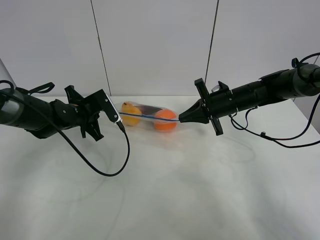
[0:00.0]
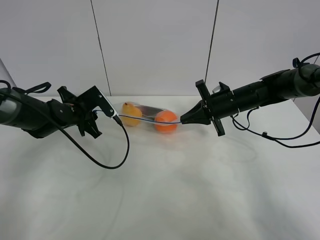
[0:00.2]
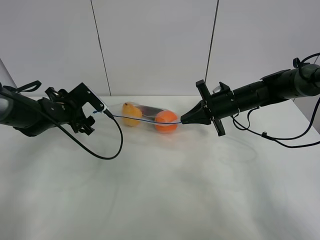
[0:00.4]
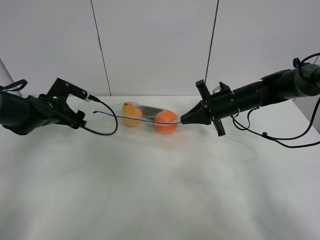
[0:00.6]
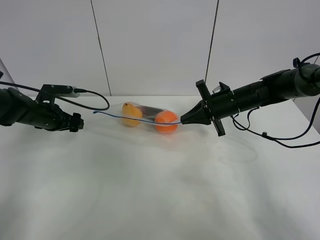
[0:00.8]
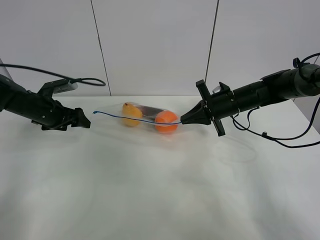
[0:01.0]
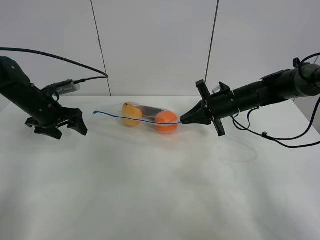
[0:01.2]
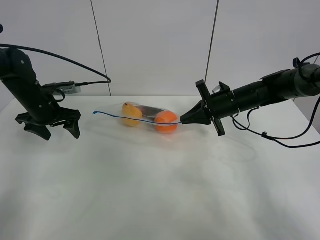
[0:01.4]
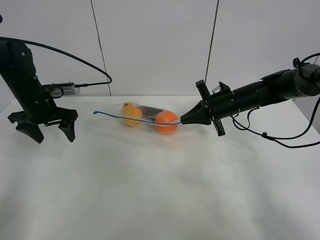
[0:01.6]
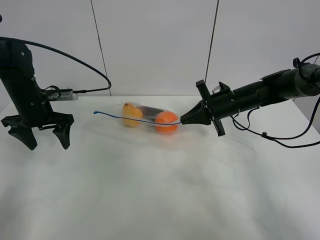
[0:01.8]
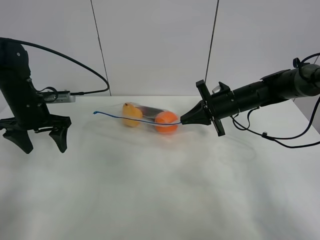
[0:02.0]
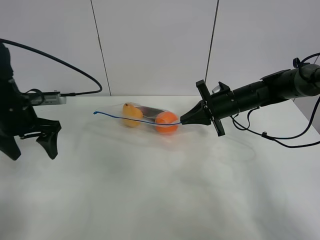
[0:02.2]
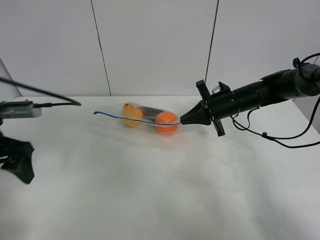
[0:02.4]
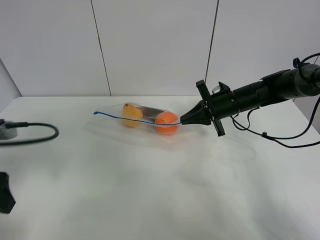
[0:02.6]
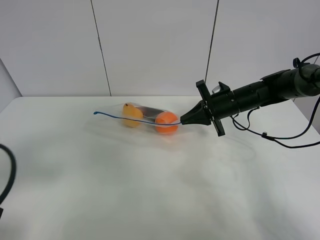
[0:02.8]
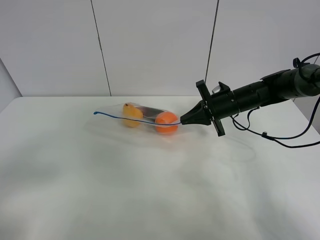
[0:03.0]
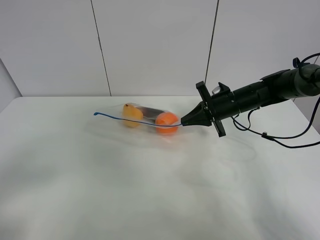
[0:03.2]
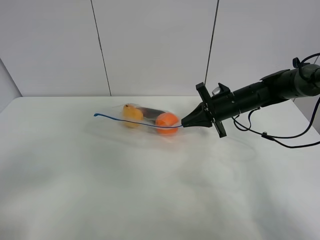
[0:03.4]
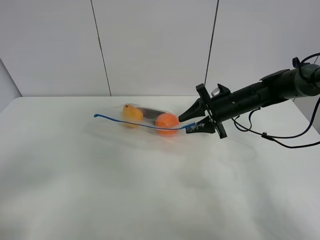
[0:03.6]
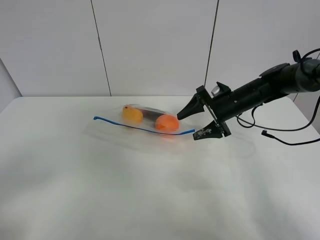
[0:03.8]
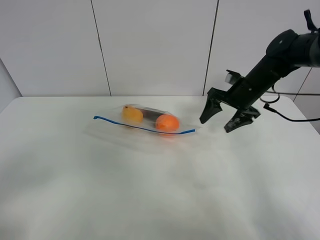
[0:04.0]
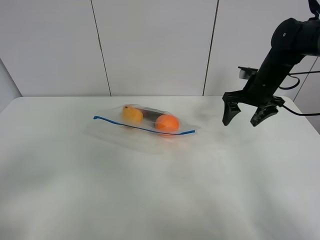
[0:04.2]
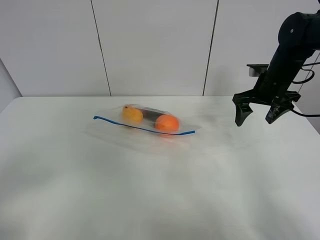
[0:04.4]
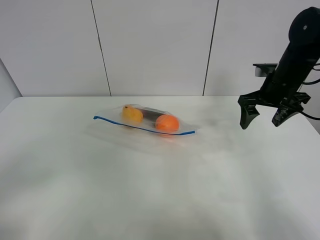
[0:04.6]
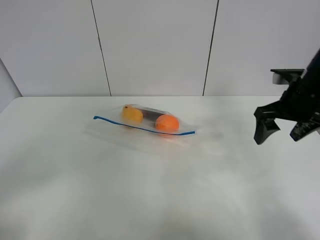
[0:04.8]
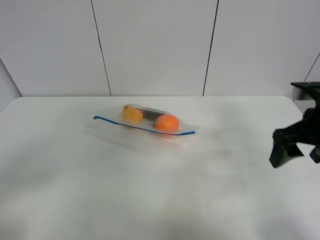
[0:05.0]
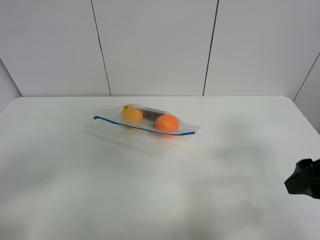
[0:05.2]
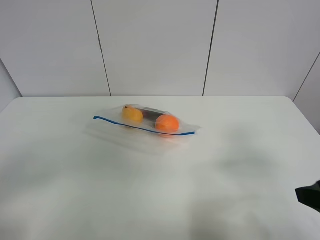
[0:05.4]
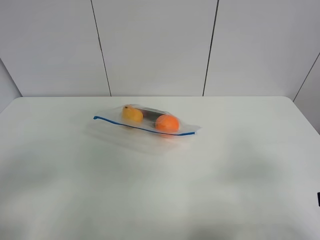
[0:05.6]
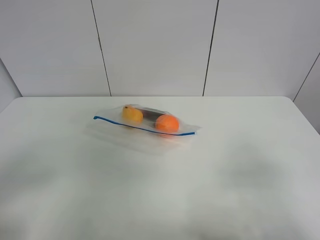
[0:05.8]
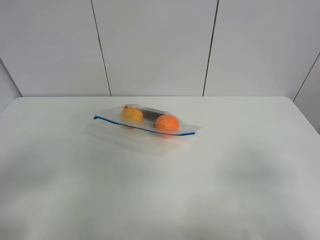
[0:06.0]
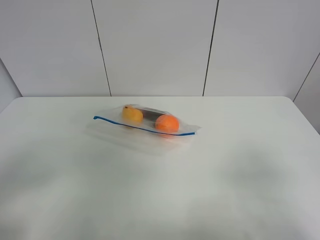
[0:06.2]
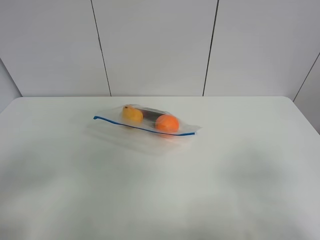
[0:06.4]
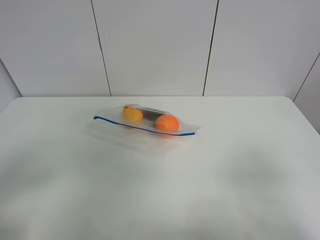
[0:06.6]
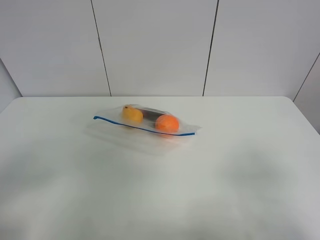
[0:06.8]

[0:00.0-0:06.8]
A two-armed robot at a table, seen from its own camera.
0:00.0 to 0:01.4: The left gripper moves to the left, about 10 cm, and opens.
0:01.4 to 0:02.8: The left gripper goes roughly 30 cm backward.
0:02.8 to 0:04.0: The right gripper moves some 5 cm, and opens its fingers. Meanwhile the left gripper shifts approximately 5 cm backward.
0:04.0 to 0:05.4: The right gripper goes roughly 30 cm backward.
0:05.4 to 0:06.8: The right gripper heads backward, covering about 10 cm.

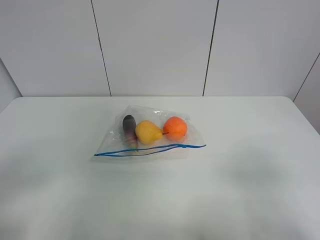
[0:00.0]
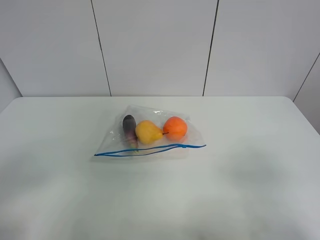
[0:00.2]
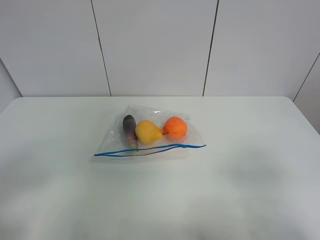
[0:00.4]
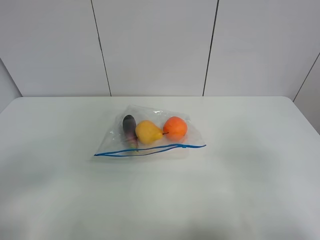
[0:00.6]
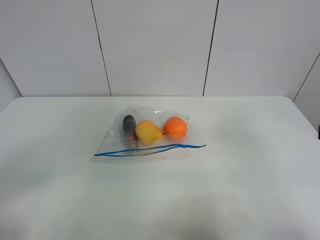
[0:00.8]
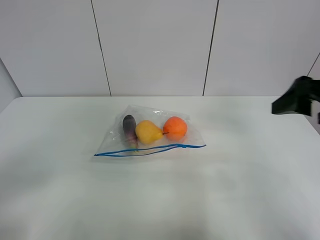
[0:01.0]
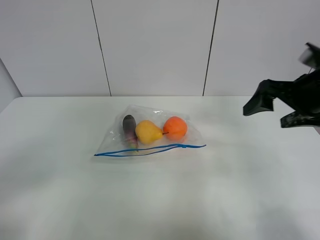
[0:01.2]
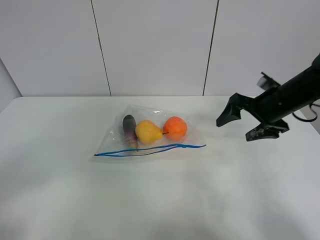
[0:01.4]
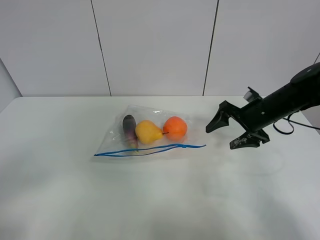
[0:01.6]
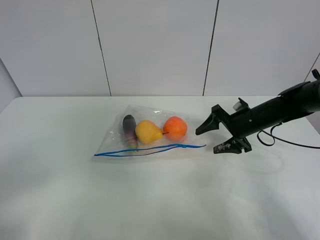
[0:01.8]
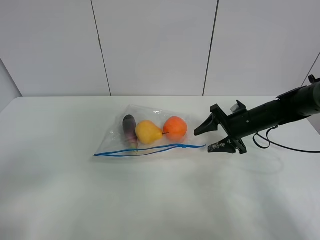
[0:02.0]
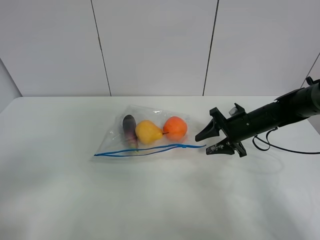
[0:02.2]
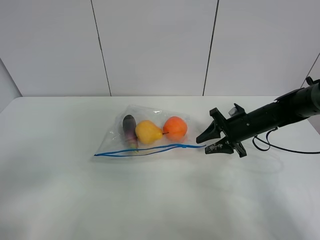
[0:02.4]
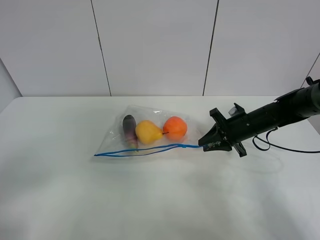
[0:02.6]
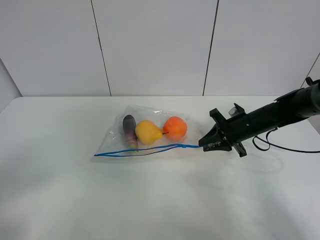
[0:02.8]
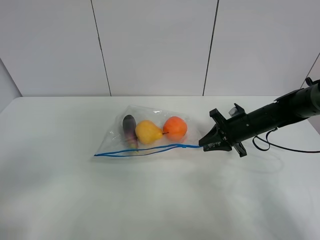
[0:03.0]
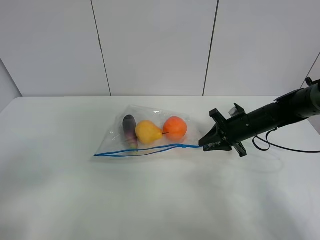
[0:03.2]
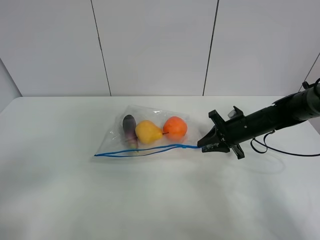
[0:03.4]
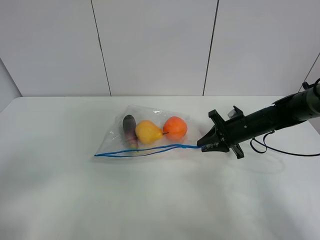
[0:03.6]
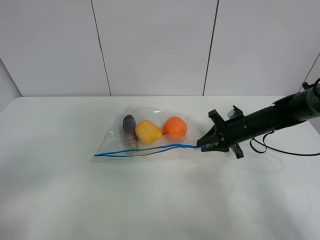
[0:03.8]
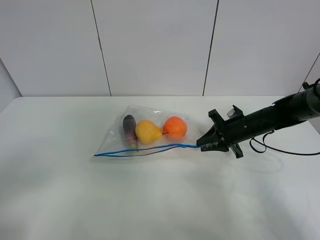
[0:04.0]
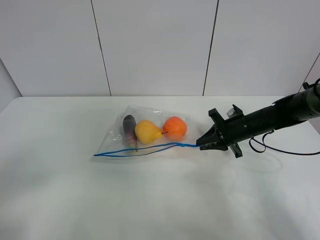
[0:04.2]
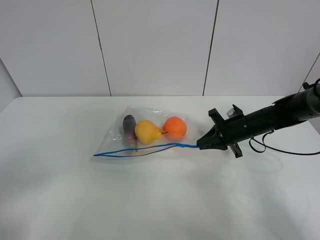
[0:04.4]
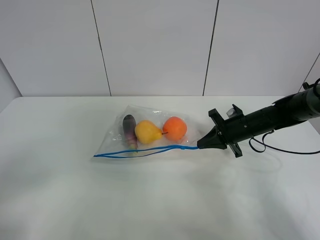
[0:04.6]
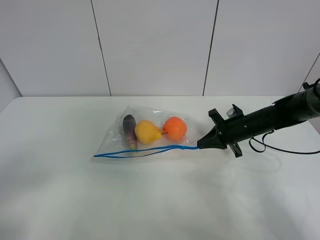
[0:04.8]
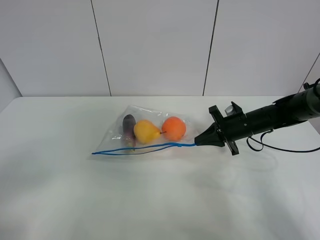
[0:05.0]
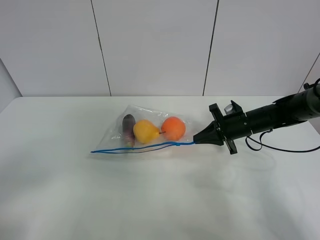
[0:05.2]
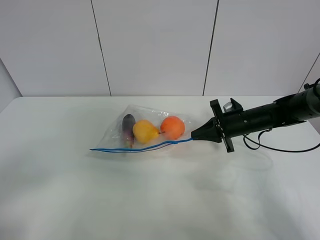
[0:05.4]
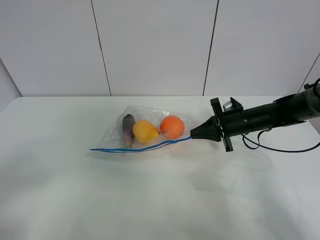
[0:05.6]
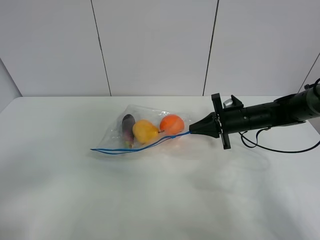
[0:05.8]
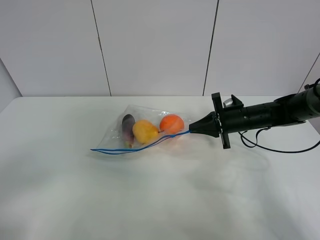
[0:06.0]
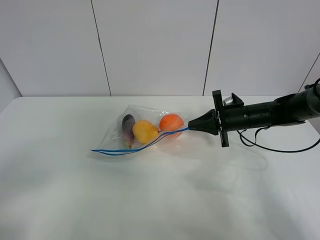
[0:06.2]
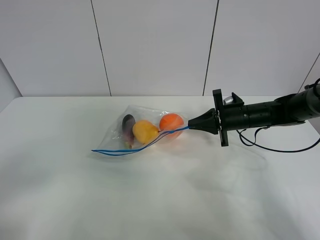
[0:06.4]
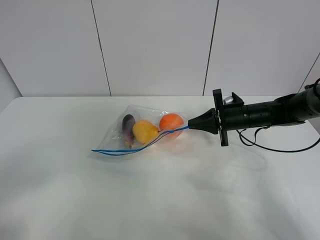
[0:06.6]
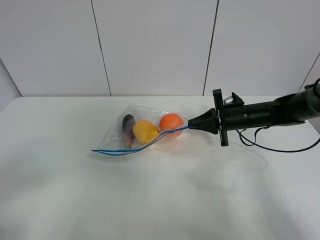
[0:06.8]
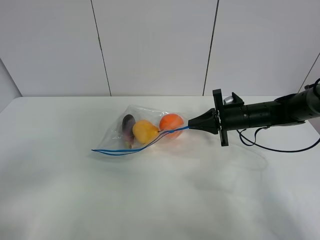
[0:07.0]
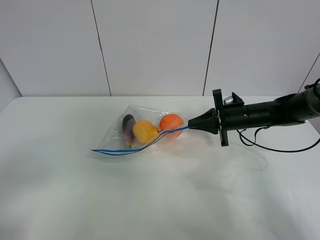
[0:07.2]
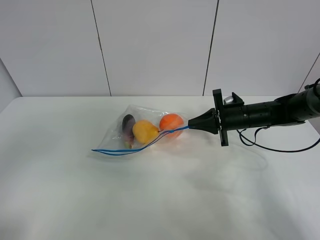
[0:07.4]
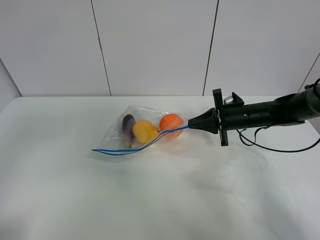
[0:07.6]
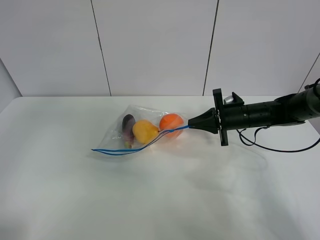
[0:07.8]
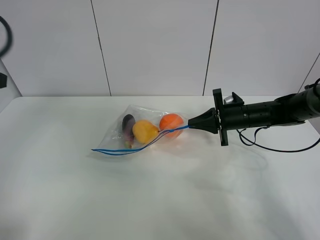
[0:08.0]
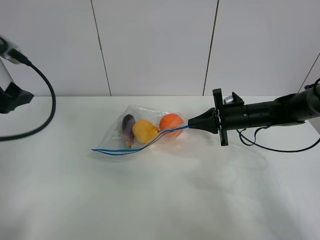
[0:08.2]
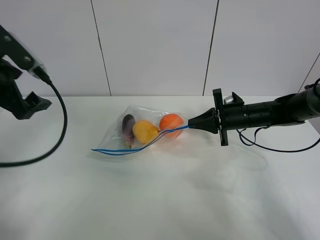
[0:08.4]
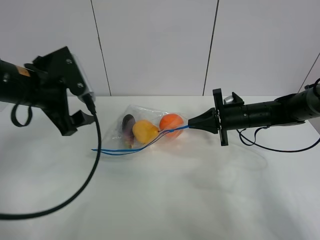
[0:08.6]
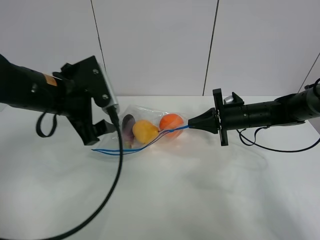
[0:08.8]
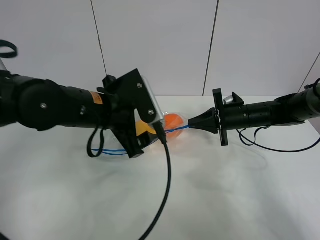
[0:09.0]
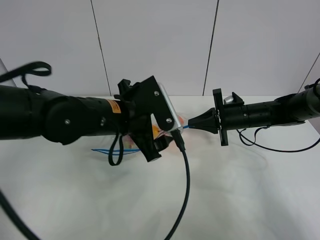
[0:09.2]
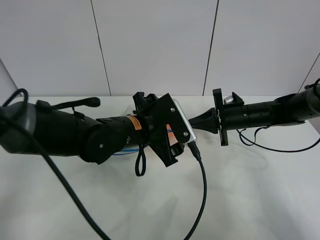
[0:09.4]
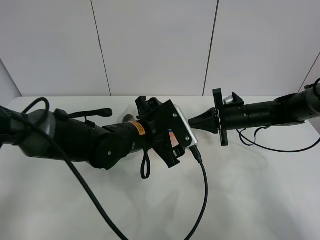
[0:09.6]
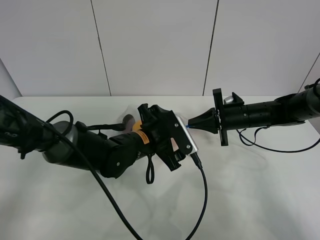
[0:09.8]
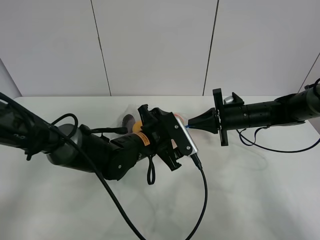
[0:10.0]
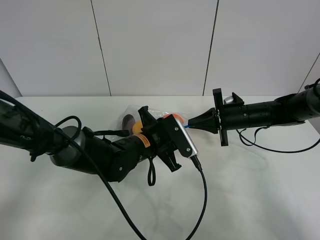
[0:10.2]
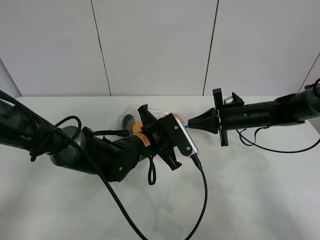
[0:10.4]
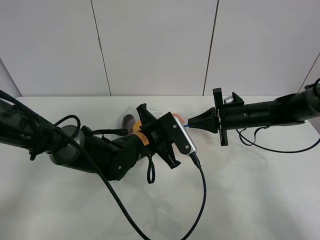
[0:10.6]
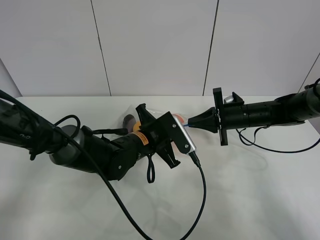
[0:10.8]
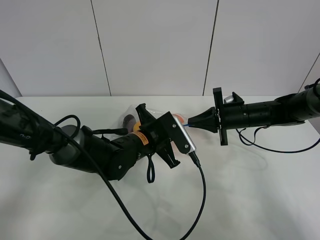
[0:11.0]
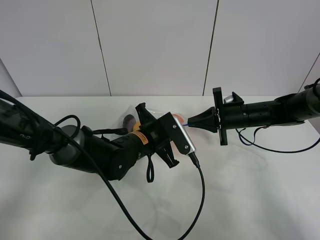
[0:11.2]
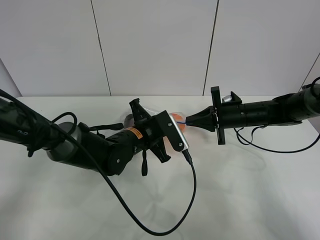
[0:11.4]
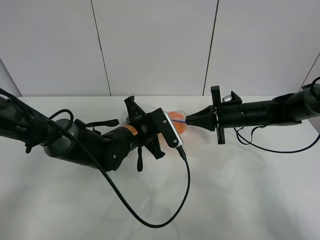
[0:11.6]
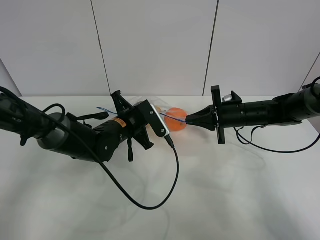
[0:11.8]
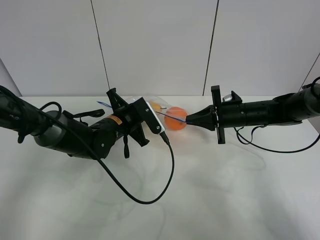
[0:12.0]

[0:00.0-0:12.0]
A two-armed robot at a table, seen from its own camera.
Step, 0:00.0 to 0:04.4: Grasp the fruit bag with right gripper.
Step, 0:04.6 to 0:06.8: Lift the fruit bag with your right gripper.
0:00.0 to 0:01.6: The right gripper moves forward, about 35 cm.
0:01.6 to 0:03.0: The right gripper ends up some 5 cm from where it was, and closes.
0:03.0 to 0:04.4: The two grippers keep their place.
0:04.4 to 0:06.0: The grippers make only small movements.
0:06.0 to 0:07.6: The left gripper moves upward and forward, approximately 15 cm.
0:07.6 to 0:09.0: The left gripper is displaced to the right, forward and downward by roughly 30 cm.
0:09.0 to 0:10.4: The left gripper shifts approximately 15 cm downward and to the right, and closes its fingers.
0:10.4 to 0:12.0: The left gripper shifts approximately 10 cm to the left and forward.

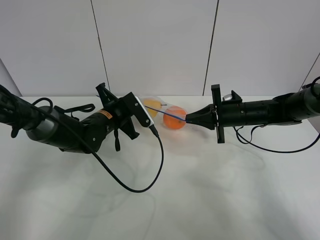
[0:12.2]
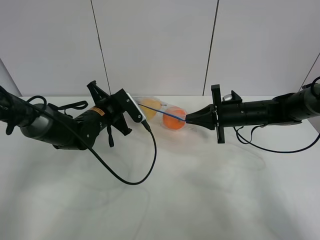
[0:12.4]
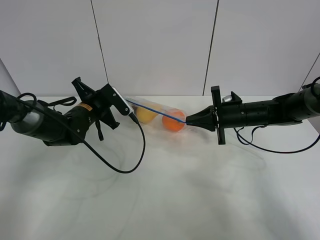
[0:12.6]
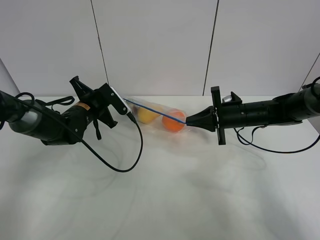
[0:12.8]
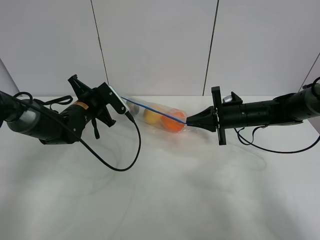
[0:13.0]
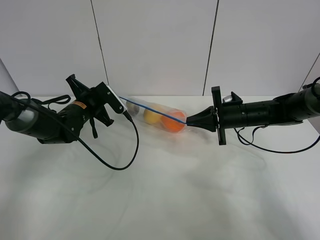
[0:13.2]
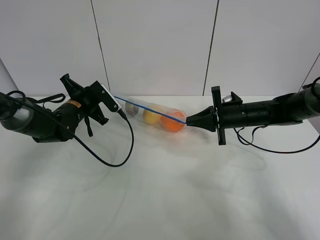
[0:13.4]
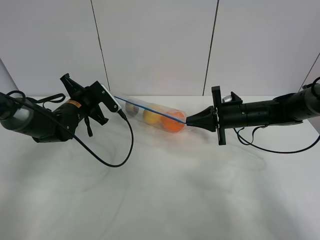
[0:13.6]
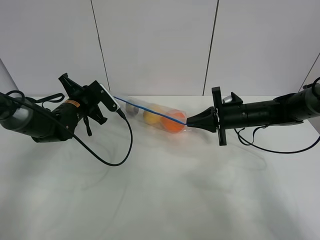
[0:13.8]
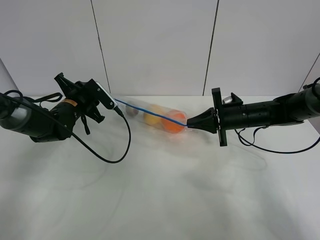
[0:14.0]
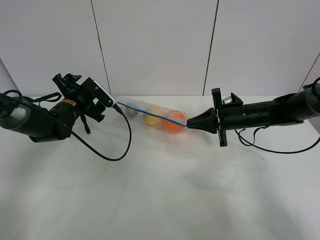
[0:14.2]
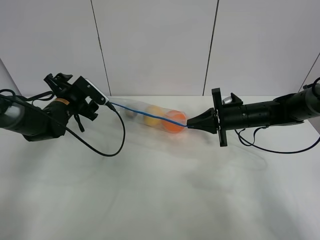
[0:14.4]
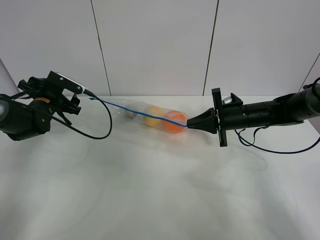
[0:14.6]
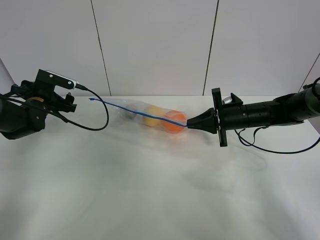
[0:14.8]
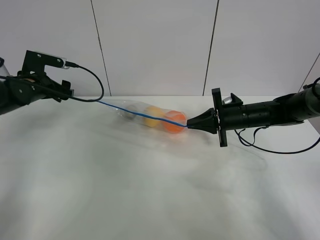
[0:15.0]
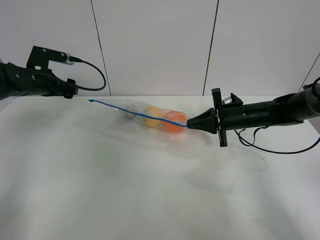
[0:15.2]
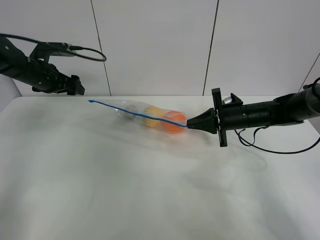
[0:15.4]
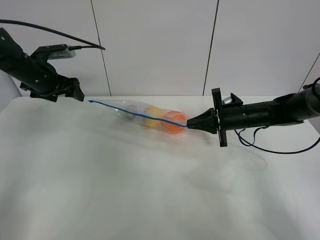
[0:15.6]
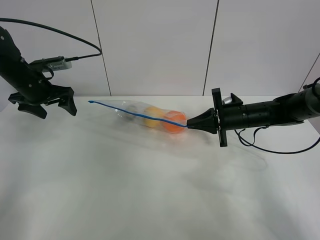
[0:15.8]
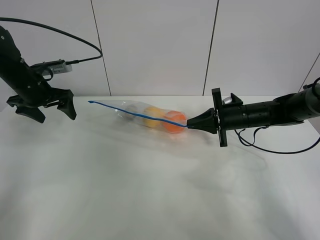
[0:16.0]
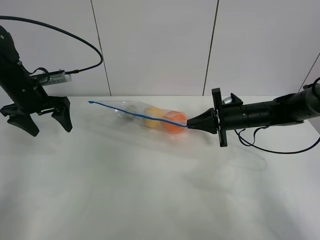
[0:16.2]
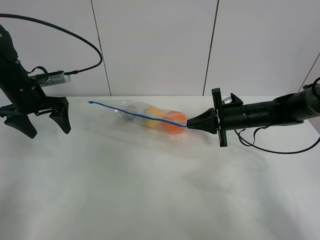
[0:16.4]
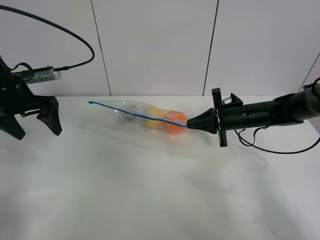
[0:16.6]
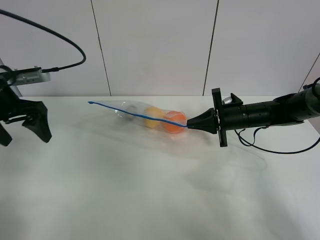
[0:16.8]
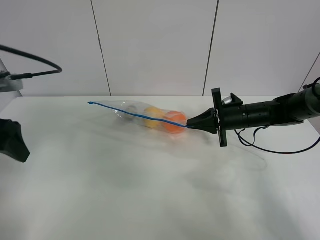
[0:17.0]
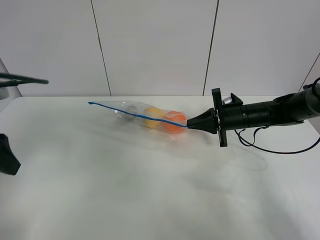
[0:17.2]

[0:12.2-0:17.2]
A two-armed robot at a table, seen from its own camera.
Step, 0:12.2 to 0:14.6: Pull the fruit bag with left gripper.
0:12.2 to 0:13.8: The left gripper is displaced to the left by roughly 10 cm.
0:13.8 to 0:15.6: The left gripper travels upward and to the left by some 10 cm, and opens.
0:15.6 to 0:17.2: The left gripper goes approximately 25 cm backward.
